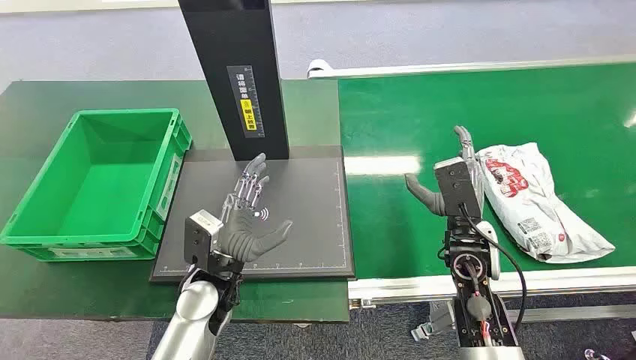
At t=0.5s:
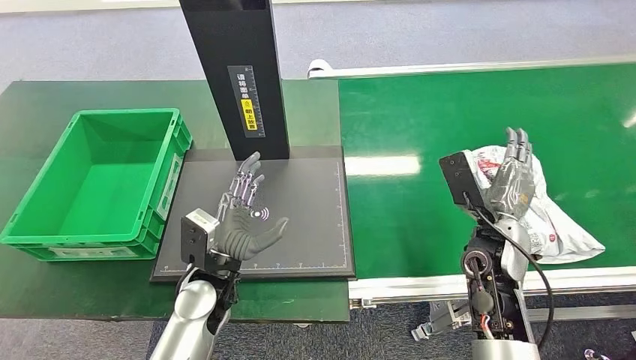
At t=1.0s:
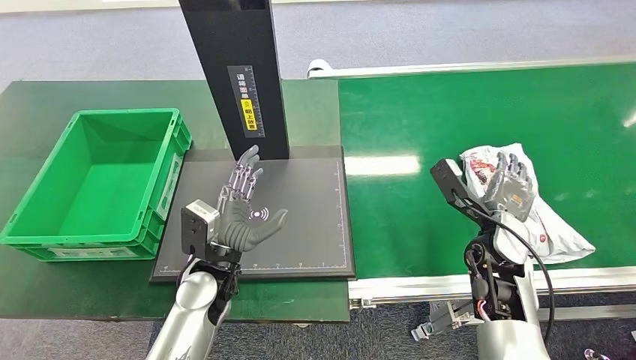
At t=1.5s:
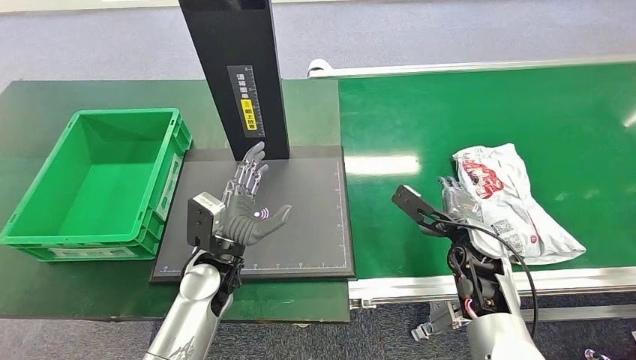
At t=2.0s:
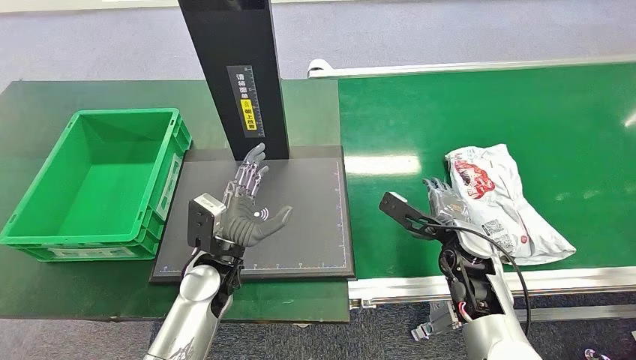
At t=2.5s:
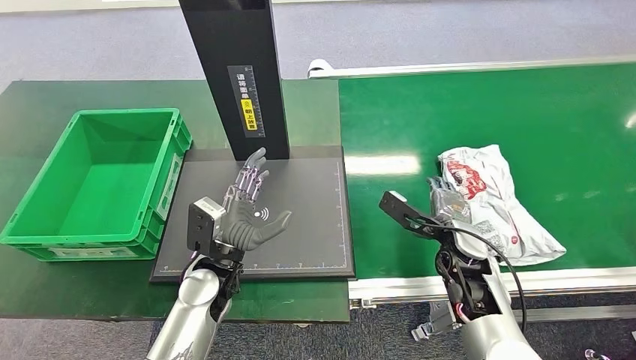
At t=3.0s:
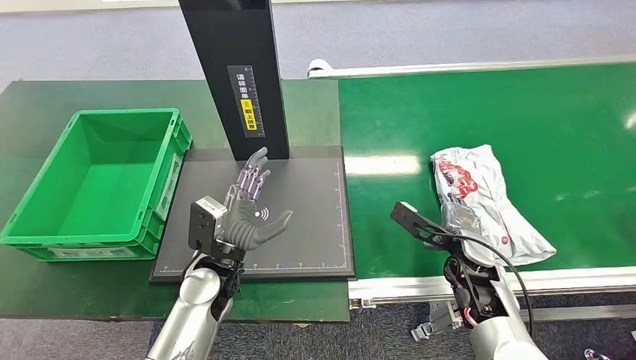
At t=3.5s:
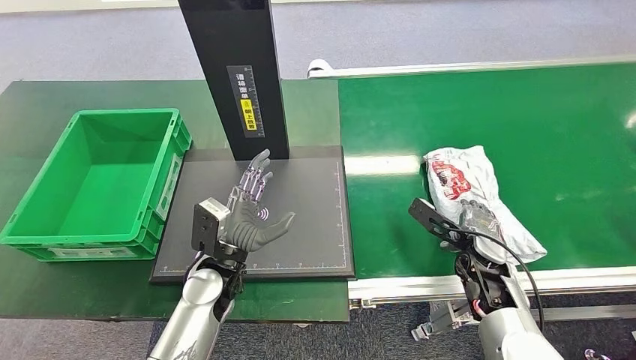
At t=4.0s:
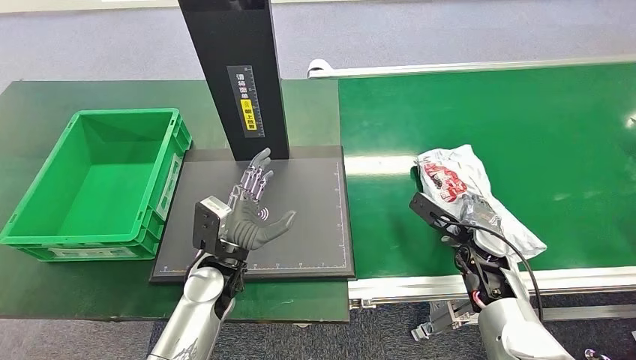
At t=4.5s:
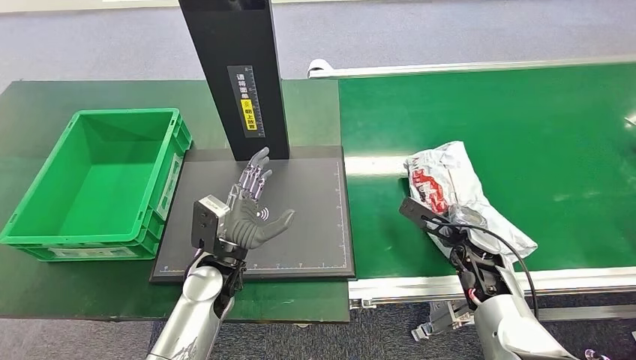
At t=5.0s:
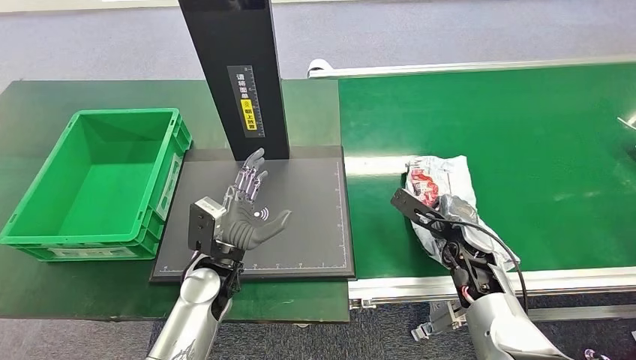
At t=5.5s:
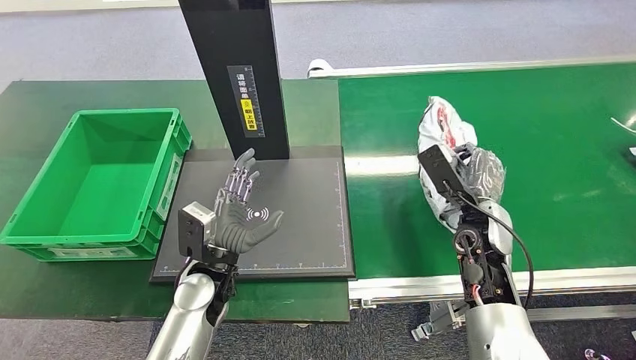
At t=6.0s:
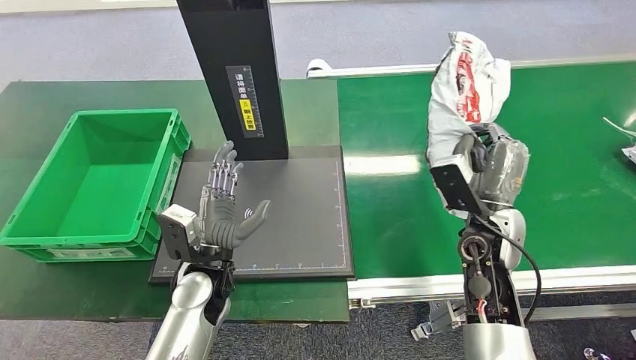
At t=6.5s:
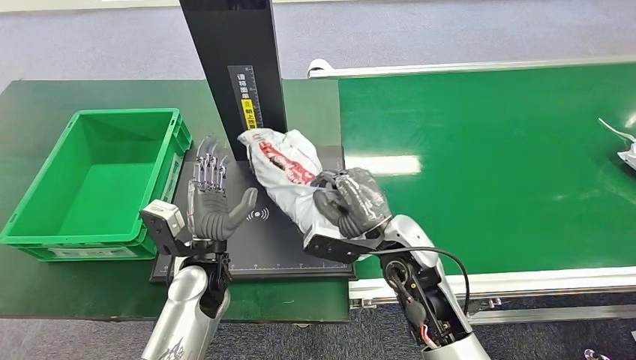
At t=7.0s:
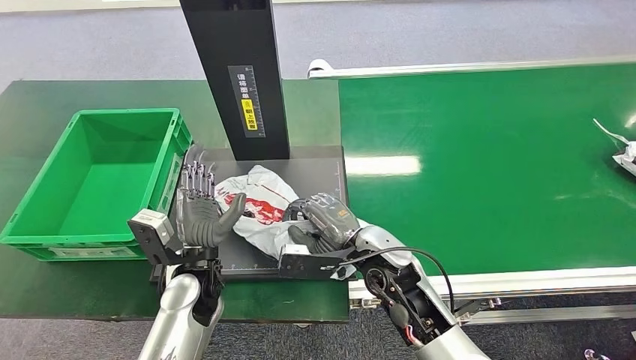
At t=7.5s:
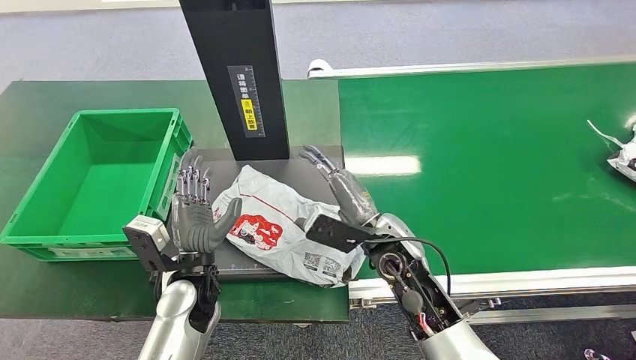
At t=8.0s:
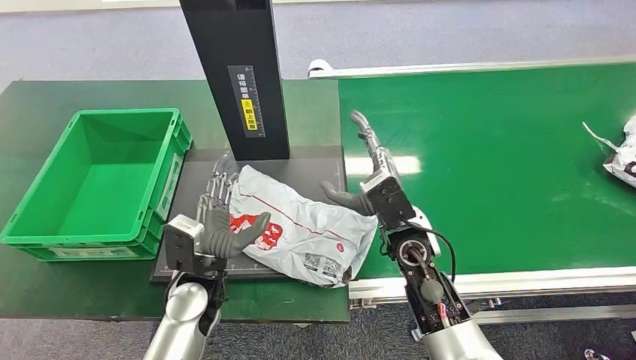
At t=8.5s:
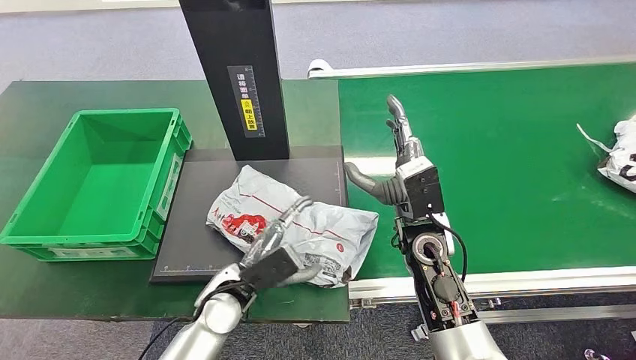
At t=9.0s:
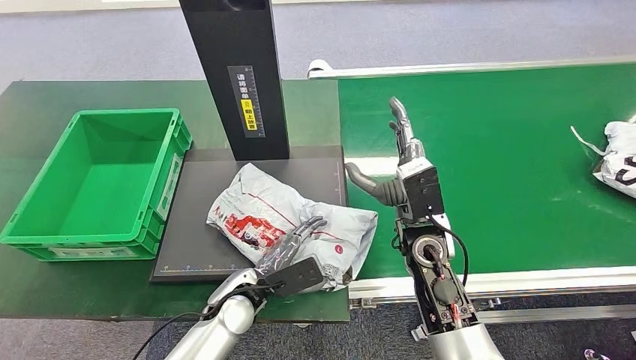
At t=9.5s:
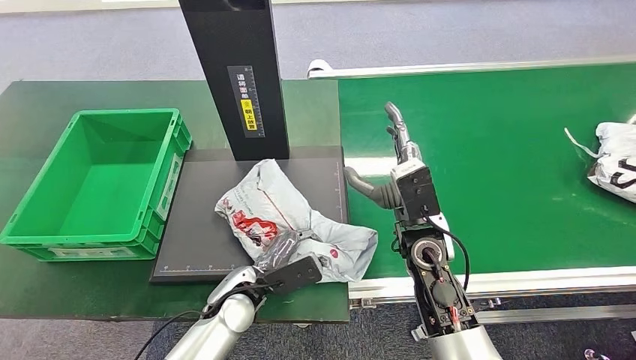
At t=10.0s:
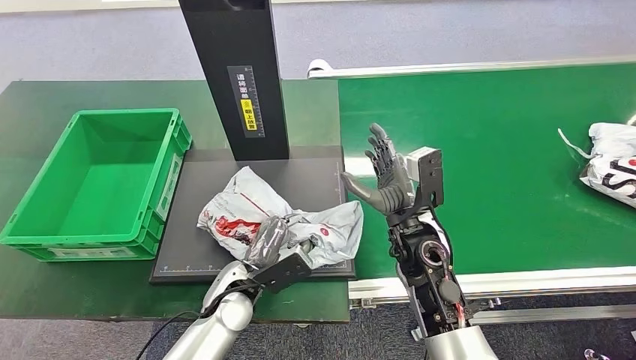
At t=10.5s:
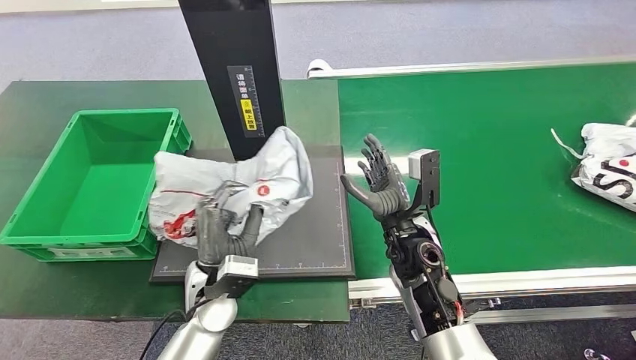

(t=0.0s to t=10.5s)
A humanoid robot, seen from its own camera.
Step, t=0.0s - t=5.5s: Pick up the package from the conveyor belt.
Step, t=6.5s - t=8.0s: Place the package onto the inbound machine.
t=2.0s - t=4.0s: The right hand ends up approximately 5 cm from where it was.
t=6.5s - t=8.5s: The left hand changes place by approximately 5 cm.

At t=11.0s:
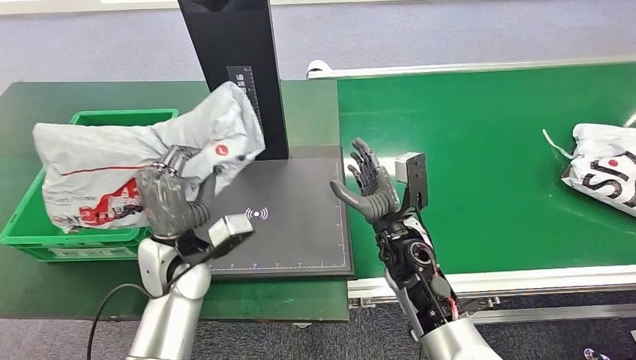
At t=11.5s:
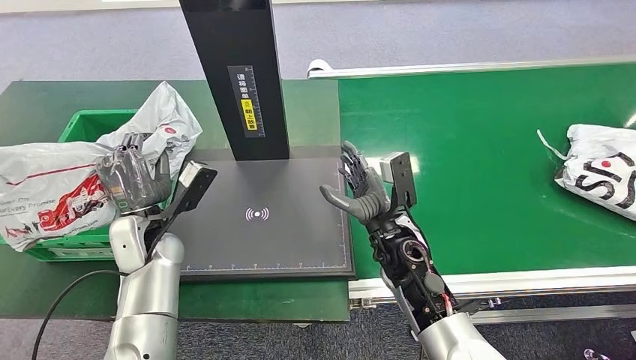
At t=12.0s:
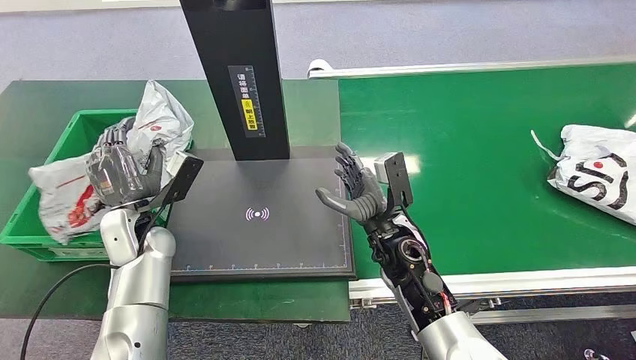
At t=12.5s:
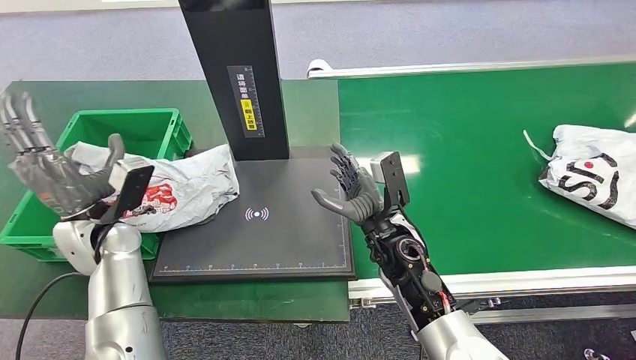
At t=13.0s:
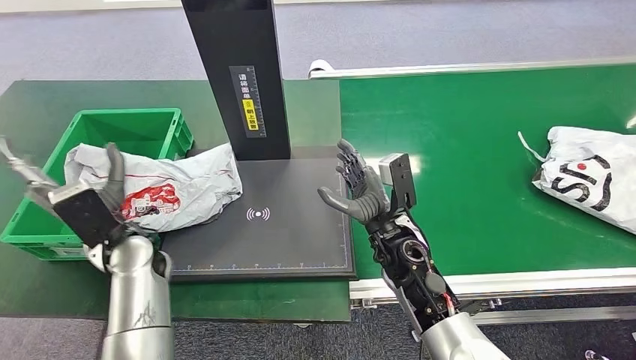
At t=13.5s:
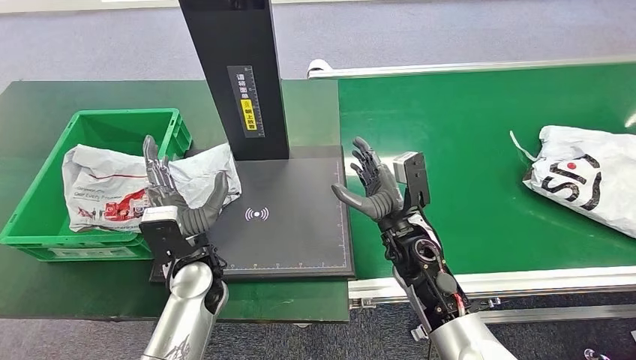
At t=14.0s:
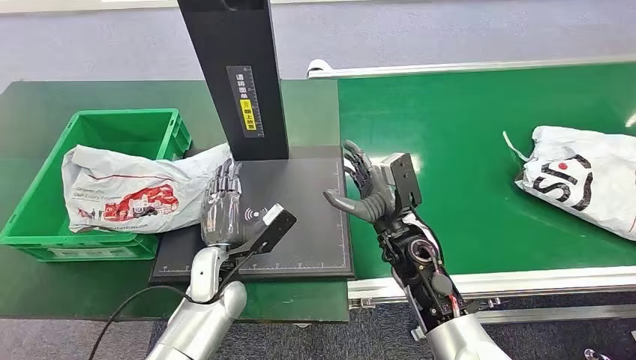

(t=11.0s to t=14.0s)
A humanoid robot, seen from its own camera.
Step, t=11.5s - t=13.5s: Place the package into the parcel locker.
